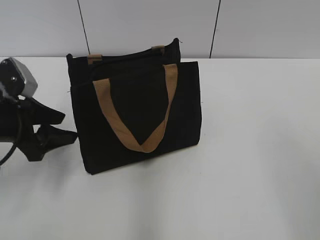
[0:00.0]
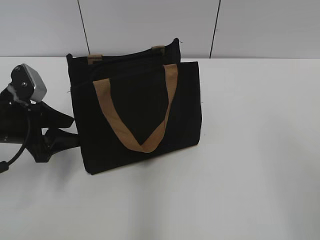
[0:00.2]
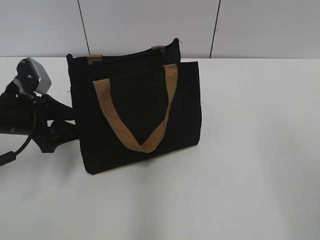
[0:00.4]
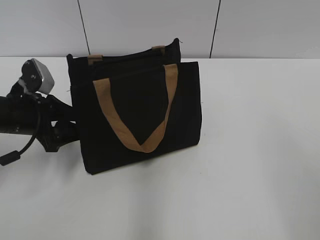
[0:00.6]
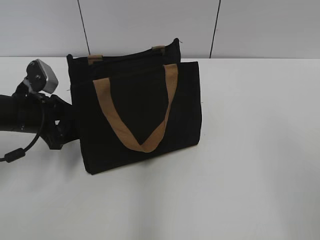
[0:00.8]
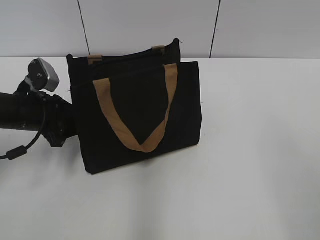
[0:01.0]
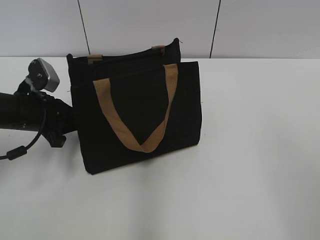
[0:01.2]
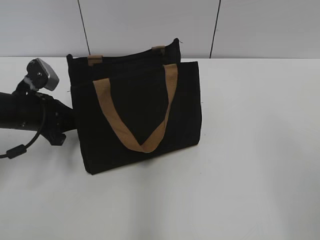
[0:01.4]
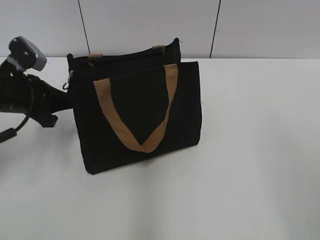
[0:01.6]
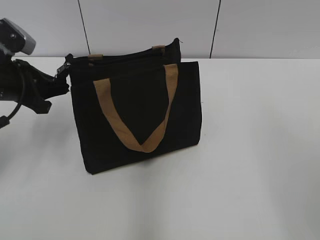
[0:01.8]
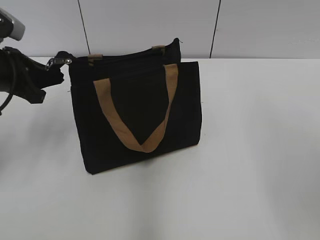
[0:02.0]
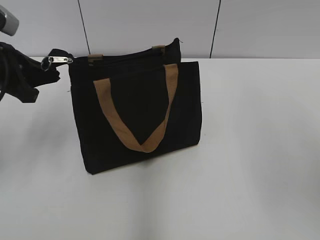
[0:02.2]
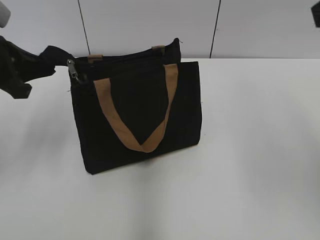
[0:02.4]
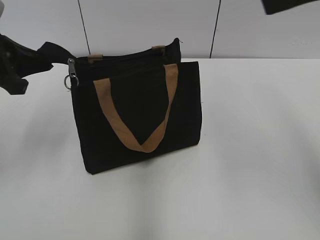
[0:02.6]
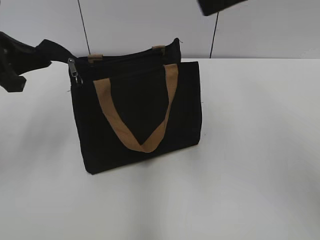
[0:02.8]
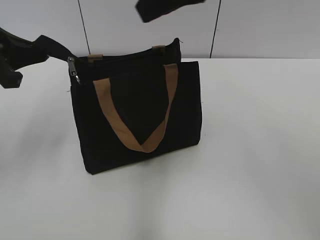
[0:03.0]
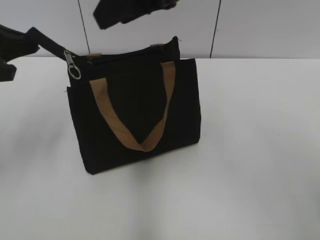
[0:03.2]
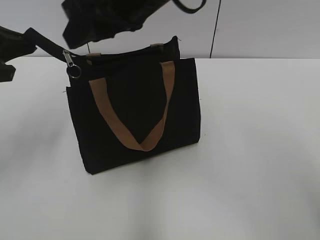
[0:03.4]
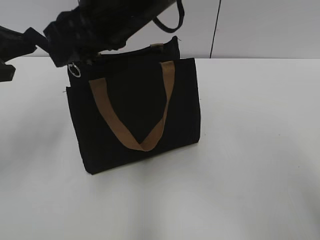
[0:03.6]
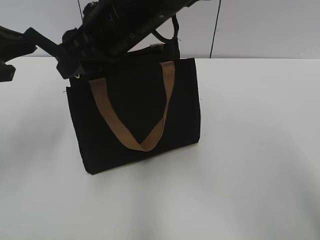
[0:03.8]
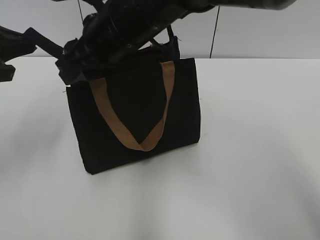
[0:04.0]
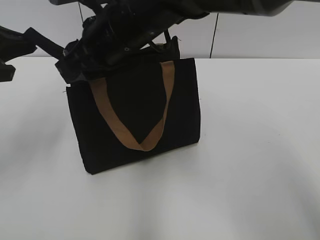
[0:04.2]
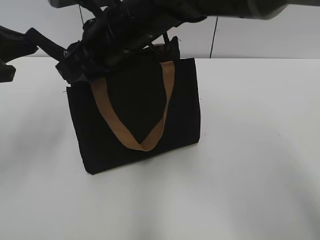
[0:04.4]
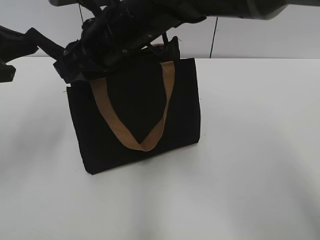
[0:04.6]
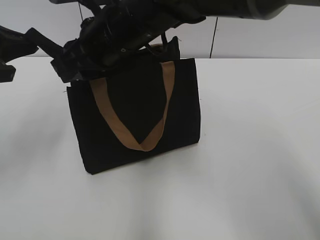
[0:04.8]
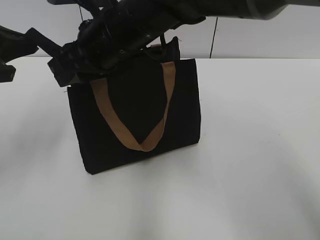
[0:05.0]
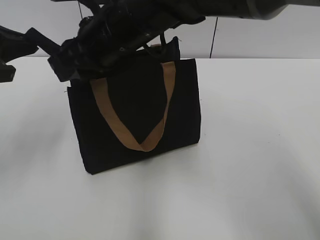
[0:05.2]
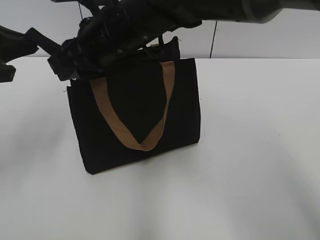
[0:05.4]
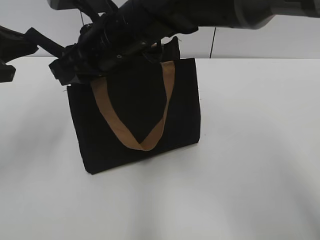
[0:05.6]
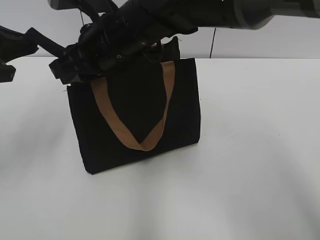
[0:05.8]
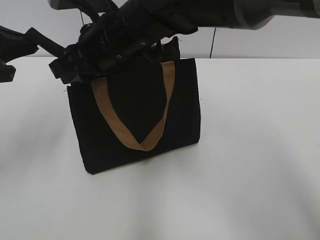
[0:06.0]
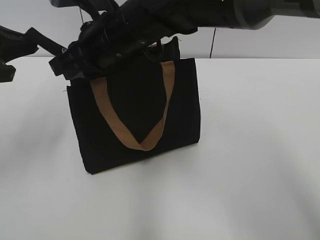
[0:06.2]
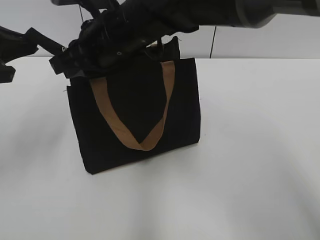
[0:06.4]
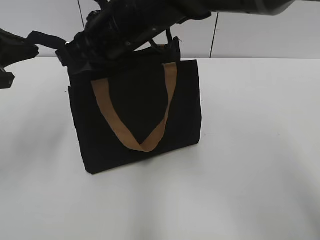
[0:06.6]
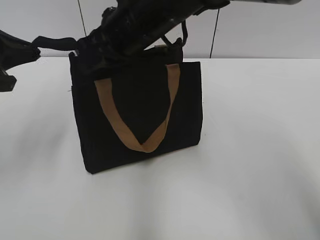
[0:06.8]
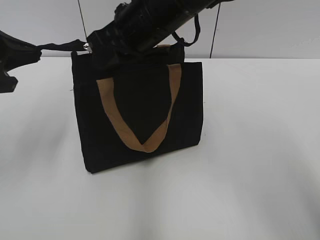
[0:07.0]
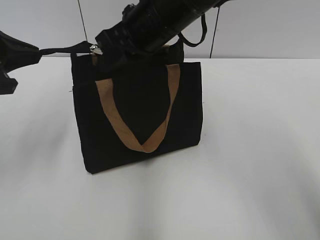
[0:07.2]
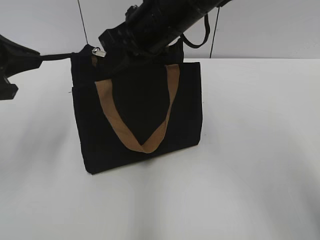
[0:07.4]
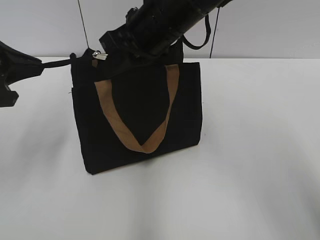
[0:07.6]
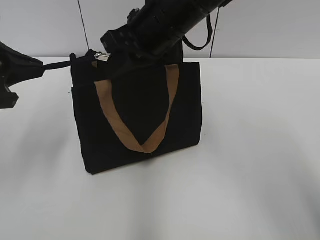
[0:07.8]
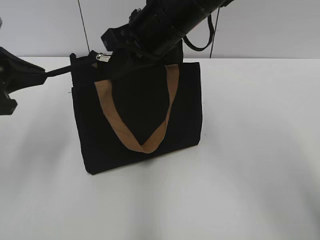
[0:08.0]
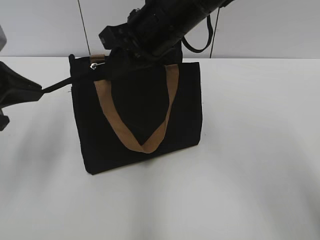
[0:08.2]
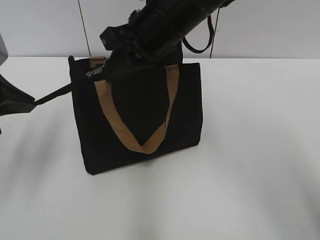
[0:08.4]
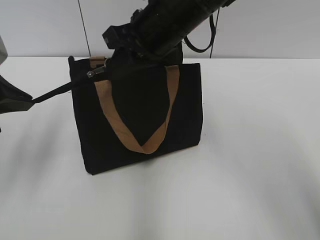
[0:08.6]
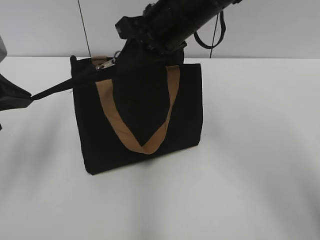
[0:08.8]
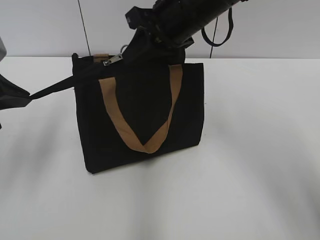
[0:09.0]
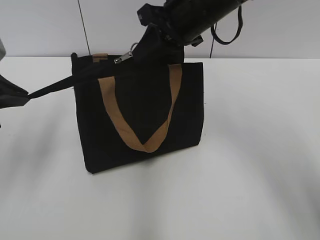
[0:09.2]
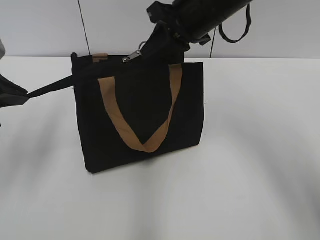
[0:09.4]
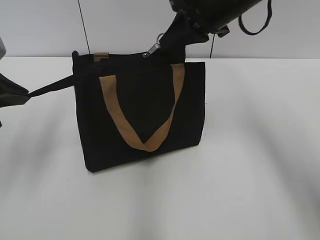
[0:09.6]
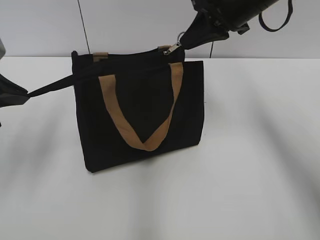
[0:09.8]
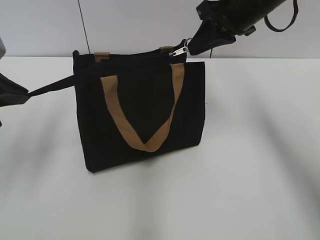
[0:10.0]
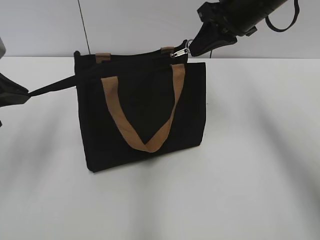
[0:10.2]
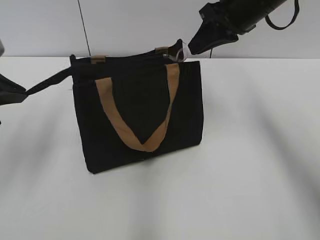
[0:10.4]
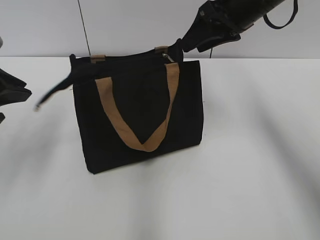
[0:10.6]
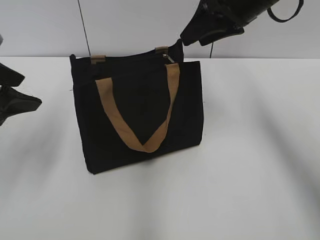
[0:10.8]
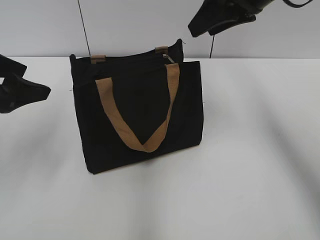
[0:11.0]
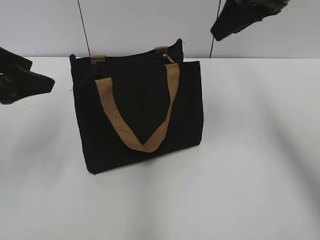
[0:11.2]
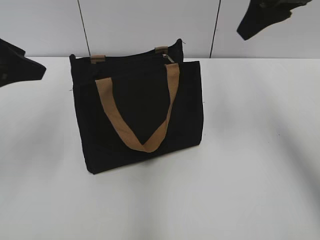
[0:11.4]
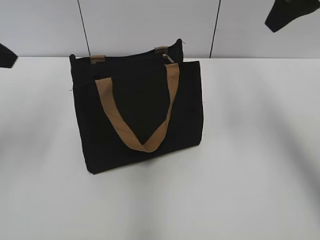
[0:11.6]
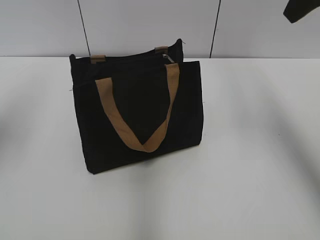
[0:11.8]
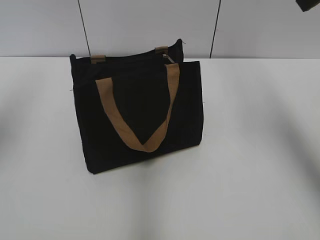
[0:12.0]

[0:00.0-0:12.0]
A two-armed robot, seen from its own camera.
Step, 0:00.0 to 0:10.2: Zip up the bag with your right hand.
0:00.0 to 0:01.6: The left gripper heads forward, covering approximately 5 cm, and closes.
0:01.6 to 0:03.0: The right gripper heads forward and to the left, covering some 25 cm. Meanwhile the left gripper goes roughly 10 cm upward.
0:03.0 to 0:04.4: The right gripper goes roughly 15 cm downward and to the left.
0:04.4 to 0:06.0: The grippers stay close to where they were, moving slightly.
0:06.0 to 0:07.6: The right gripper moves to the right, roughly 5 cm, and closes its fingers.
0:07.6 to 0:09.0: The grippers stay close to where they were, moving slightly.
0:09.0 to 0:10.4: The right gripper moves to the right, approximately 10 cm.
0:10.4 to 0:12.0: The right gripper goes some 15 cm upward, backward and to the right, and opens its fingers. The left gripper moves upward, about 10 cm, and opens.

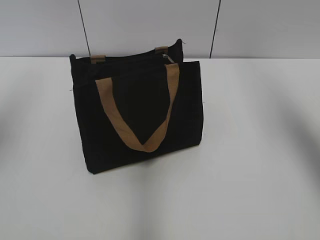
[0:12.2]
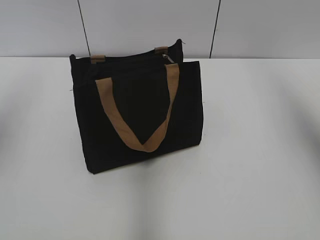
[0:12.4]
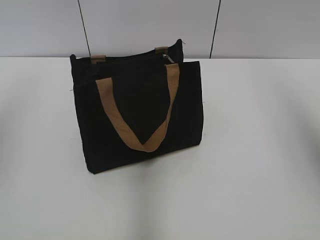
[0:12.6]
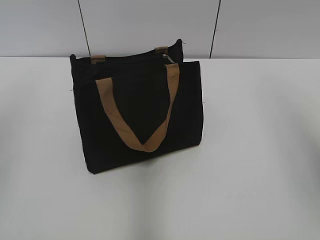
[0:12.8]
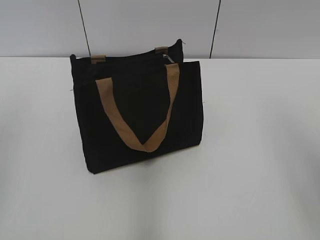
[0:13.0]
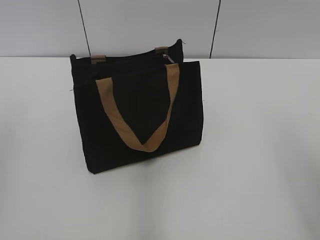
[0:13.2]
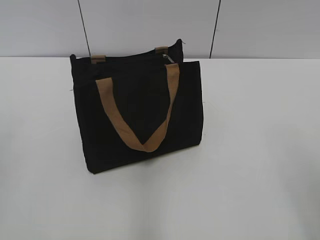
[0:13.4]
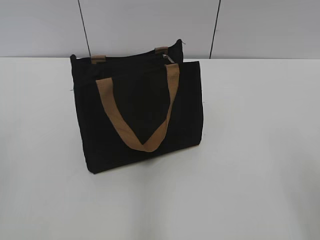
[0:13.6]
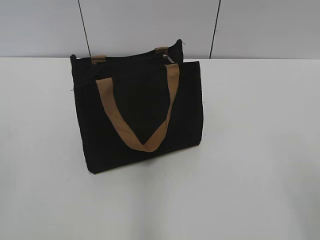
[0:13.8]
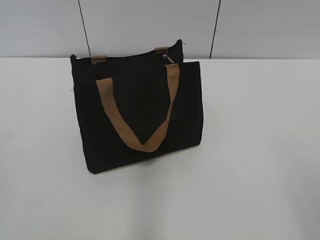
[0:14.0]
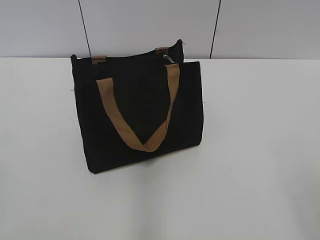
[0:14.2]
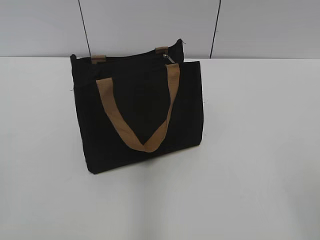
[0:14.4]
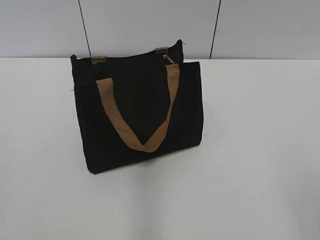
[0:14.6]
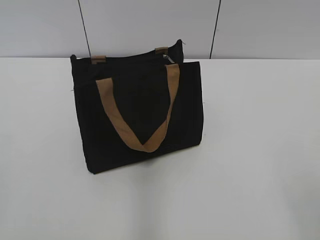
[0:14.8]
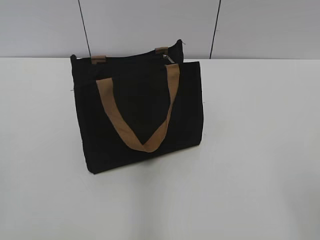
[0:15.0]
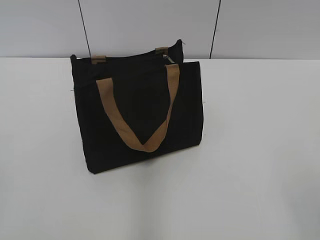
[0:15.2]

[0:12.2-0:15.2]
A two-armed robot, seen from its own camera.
0:12.2 to 0:13.8: The right gripper travels backward and downward by approximately 30 cm. Meanwhile the left gripper moves backward, about 20 cm.
